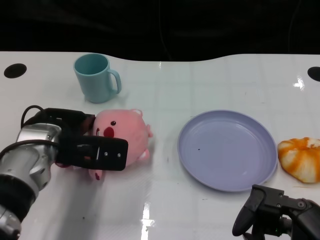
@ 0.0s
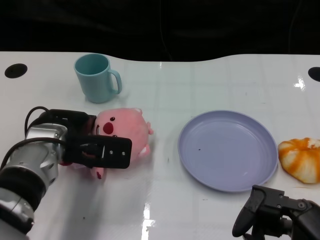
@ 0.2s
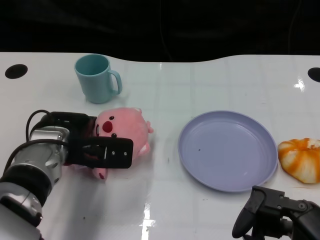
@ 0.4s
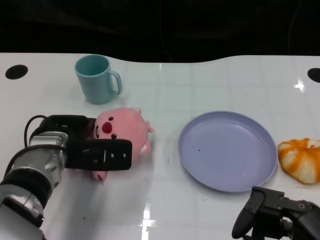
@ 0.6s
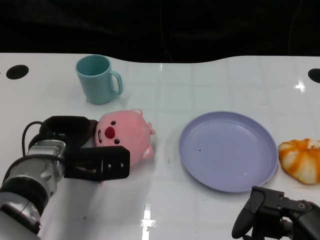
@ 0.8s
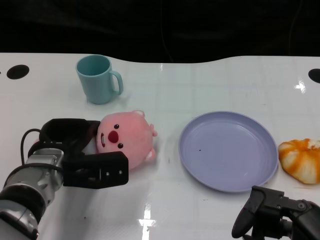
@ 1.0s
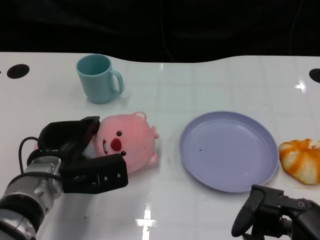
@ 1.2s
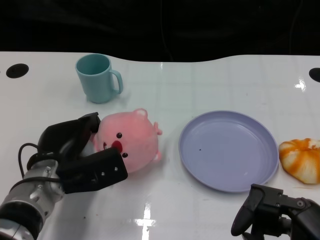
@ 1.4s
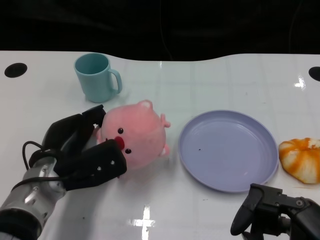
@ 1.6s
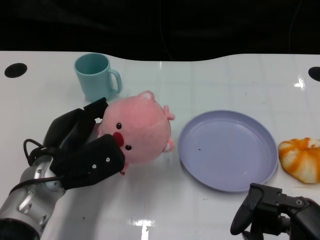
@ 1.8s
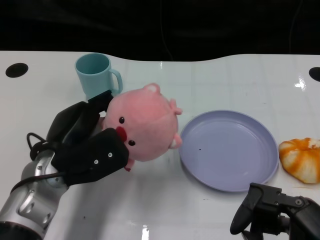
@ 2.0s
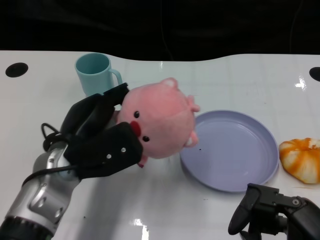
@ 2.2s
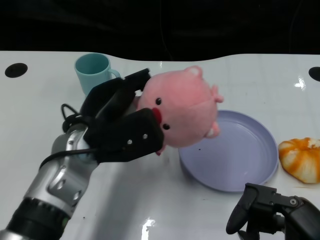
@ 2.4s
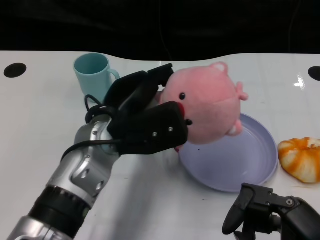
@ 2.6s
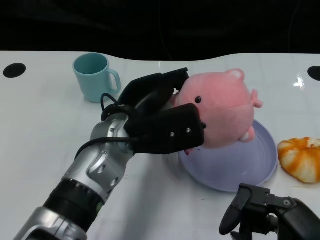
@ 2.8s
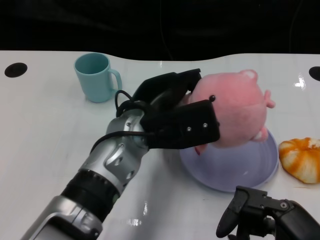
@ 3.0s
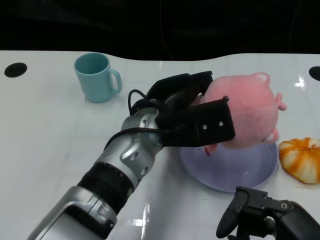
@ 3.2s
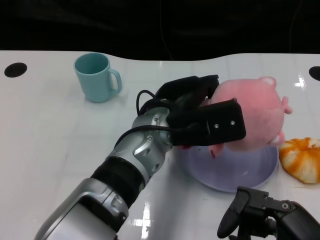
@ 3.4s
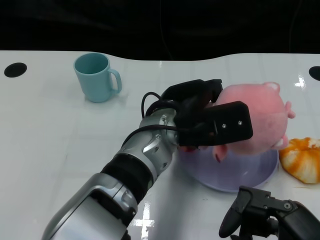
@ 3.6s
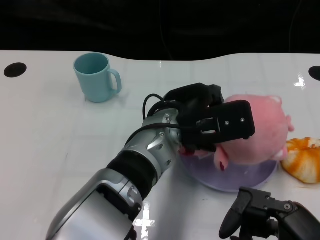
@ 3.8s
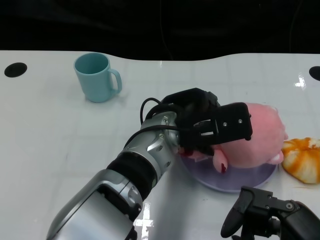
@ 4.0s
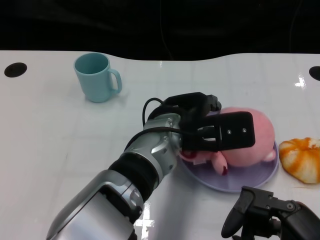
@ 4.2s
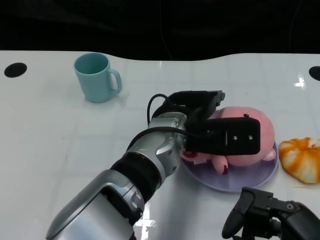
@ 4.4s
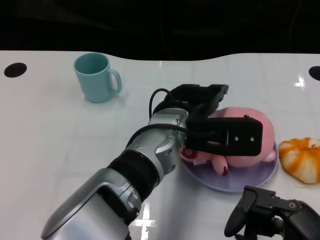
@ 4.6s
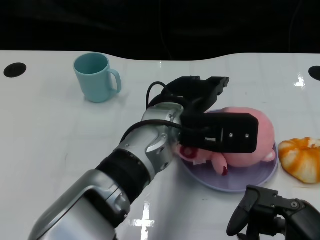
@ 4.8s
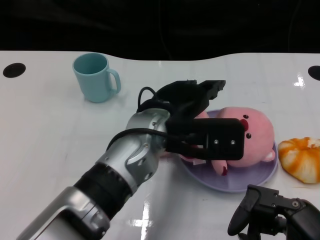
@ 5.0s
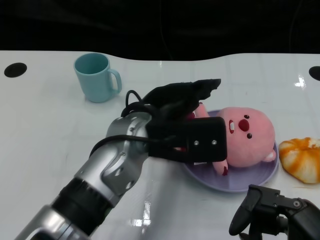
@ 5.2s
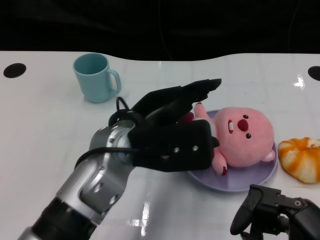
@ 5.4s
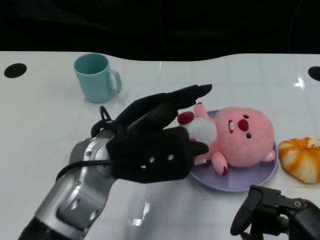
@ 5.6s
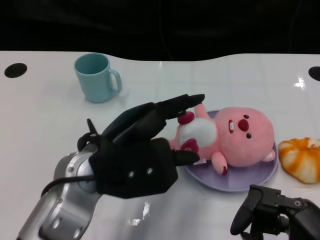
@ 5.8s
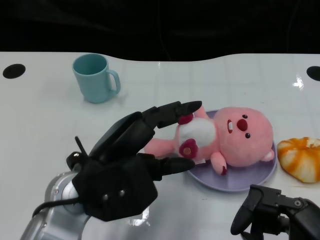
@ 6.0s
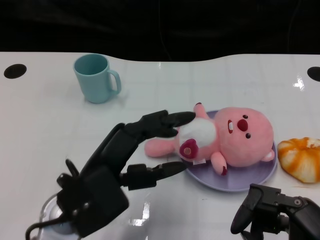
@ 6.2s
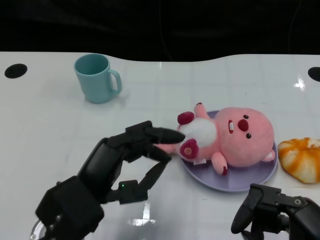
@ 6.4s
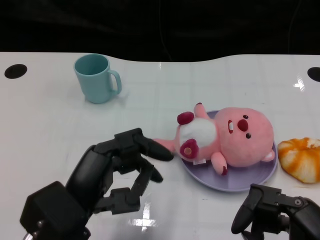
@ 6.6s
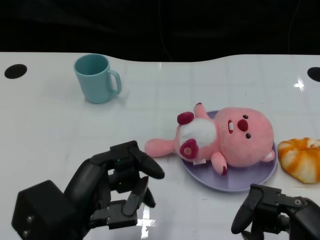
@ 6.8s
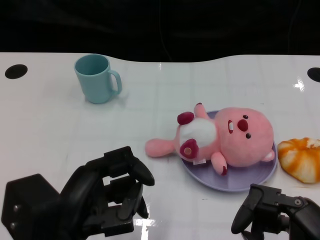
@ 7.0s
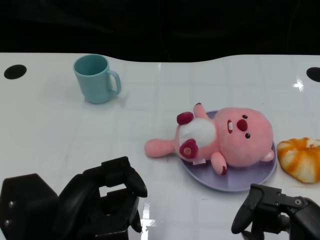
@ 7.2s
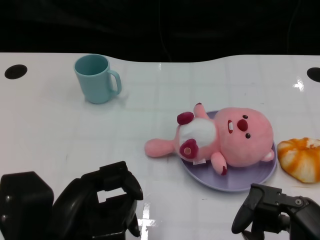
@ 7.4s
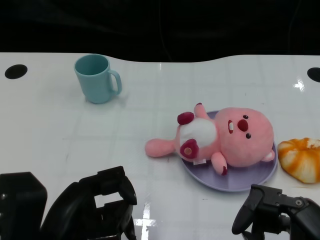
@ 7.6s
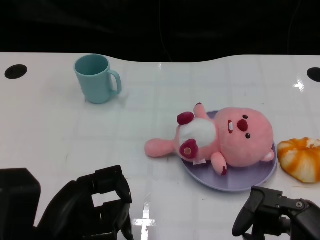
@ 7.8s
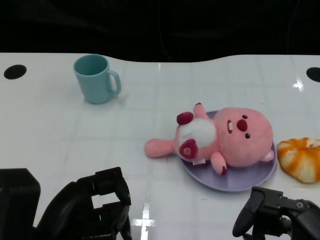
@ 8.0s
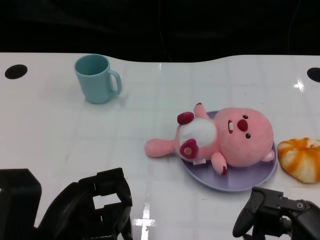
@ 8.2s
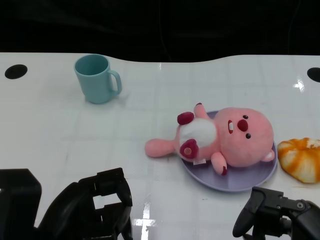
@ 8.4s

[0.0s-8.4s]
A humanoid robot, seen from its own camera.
Task of the whole recording: Pick up the doll on one side of the plate and place it into the plate.
Step, 1.8s to 5.2s: Place the pink doll into the plate with the left gripper.
0.0s to 1.4s: The left hand goes approximately 5 cm downward.
1.4s to 2.8s: The left hand shifts approximately 15 cm to the right and upward.
2.8s to 4.2s: The left hand moves to the right, roughly 5 cm.
4.2s to 5.6s: The left hand is displaced to the left by approximately 10 cm.
5.6s to 7.0s: The left hand shifts approximately 10 cm backward and to the left.
7.0s to 8.4s: The hands move only a little.

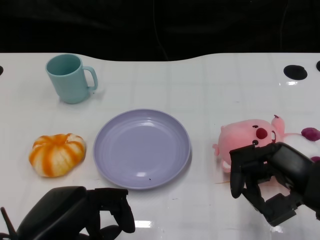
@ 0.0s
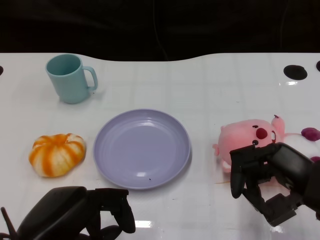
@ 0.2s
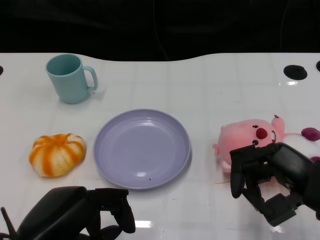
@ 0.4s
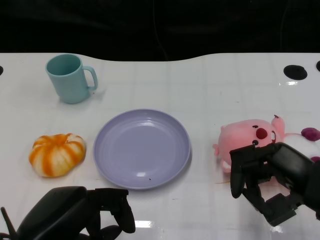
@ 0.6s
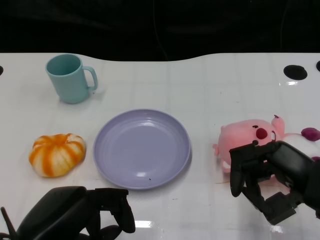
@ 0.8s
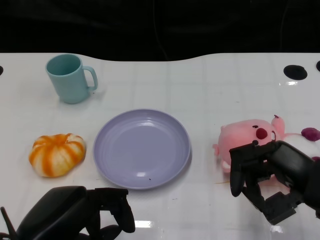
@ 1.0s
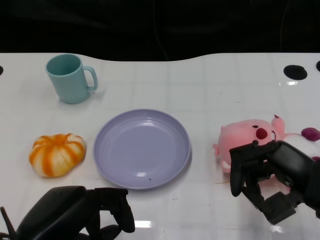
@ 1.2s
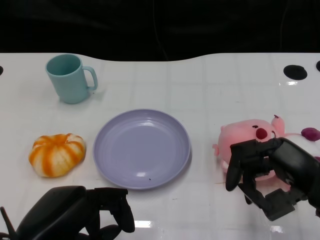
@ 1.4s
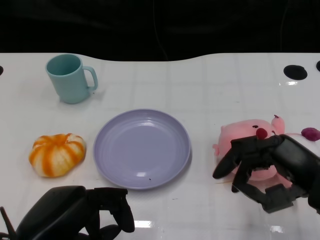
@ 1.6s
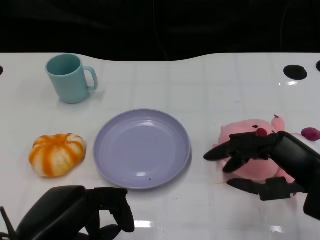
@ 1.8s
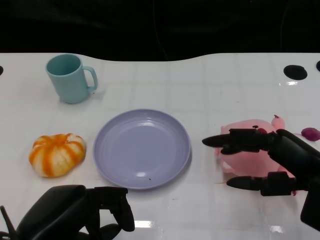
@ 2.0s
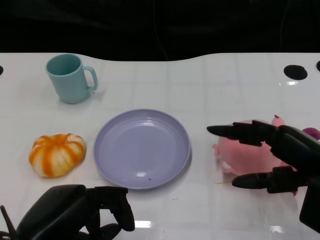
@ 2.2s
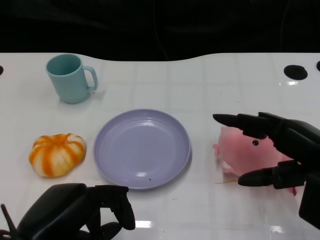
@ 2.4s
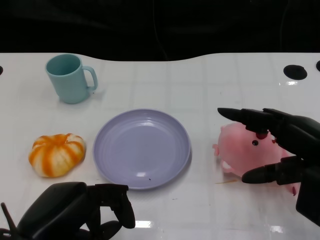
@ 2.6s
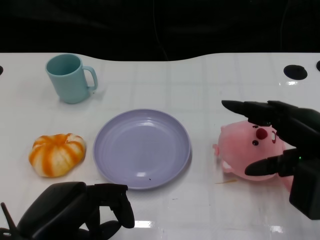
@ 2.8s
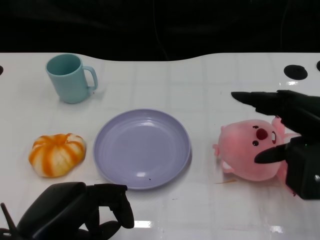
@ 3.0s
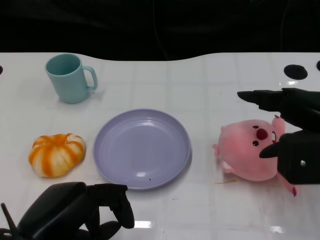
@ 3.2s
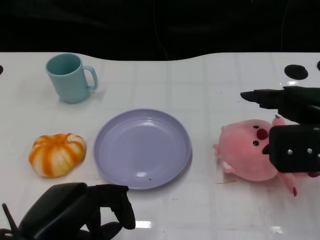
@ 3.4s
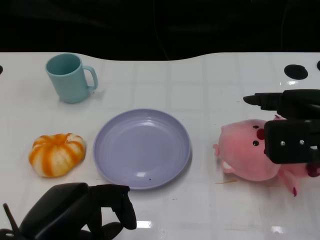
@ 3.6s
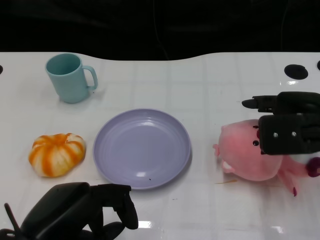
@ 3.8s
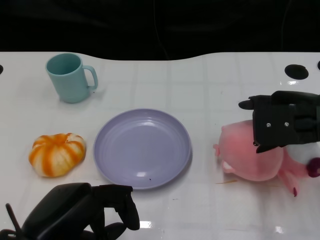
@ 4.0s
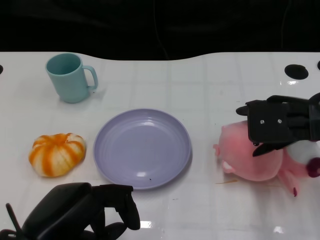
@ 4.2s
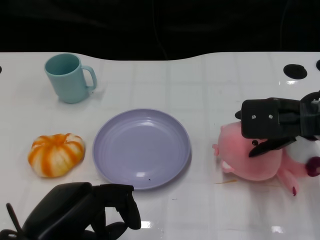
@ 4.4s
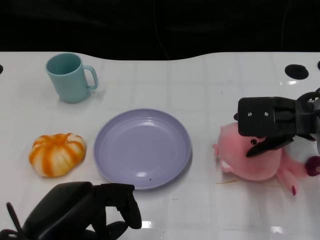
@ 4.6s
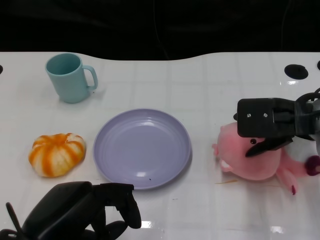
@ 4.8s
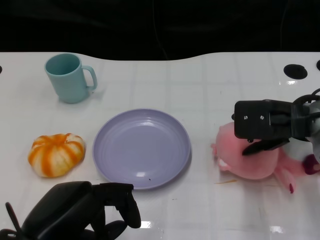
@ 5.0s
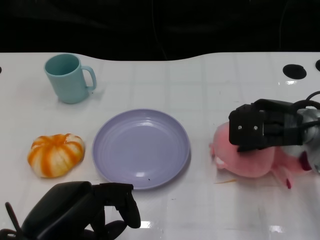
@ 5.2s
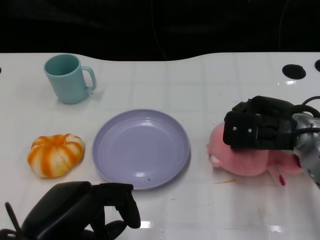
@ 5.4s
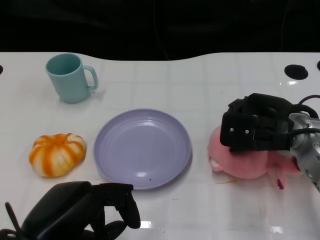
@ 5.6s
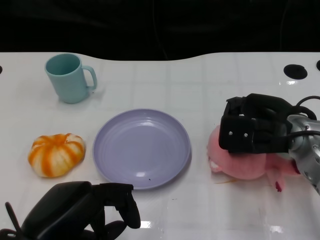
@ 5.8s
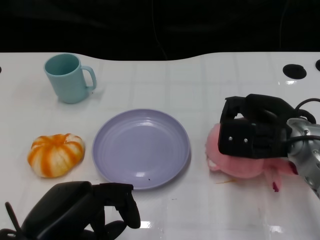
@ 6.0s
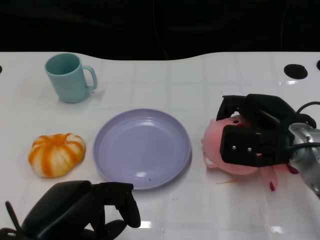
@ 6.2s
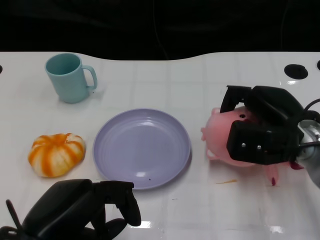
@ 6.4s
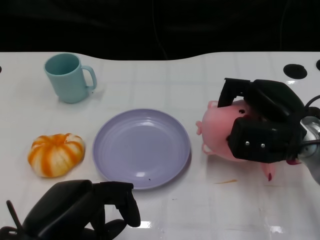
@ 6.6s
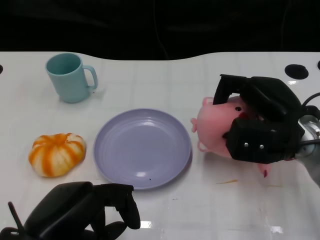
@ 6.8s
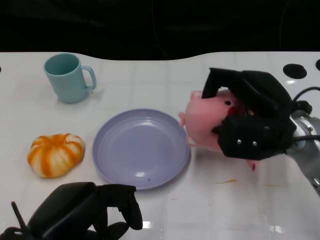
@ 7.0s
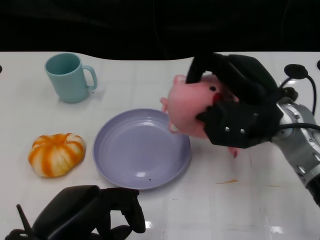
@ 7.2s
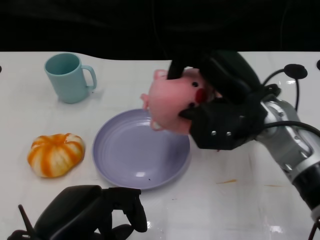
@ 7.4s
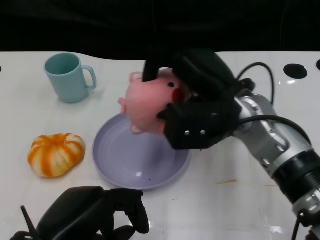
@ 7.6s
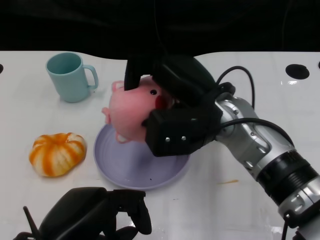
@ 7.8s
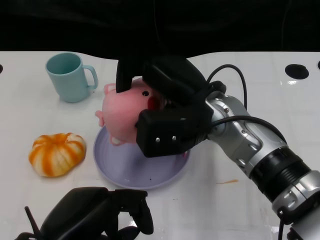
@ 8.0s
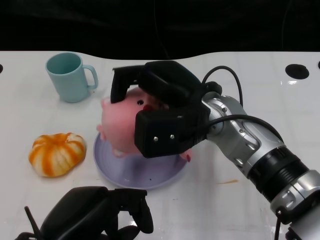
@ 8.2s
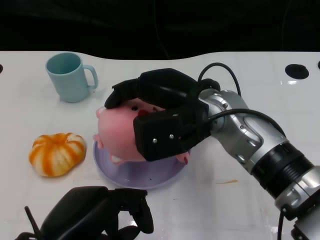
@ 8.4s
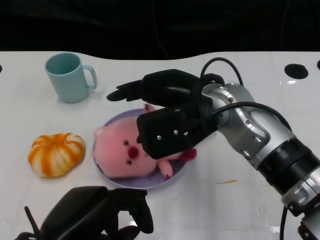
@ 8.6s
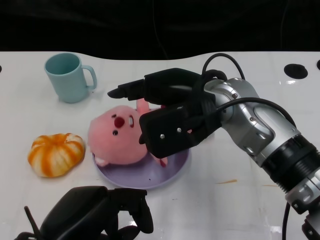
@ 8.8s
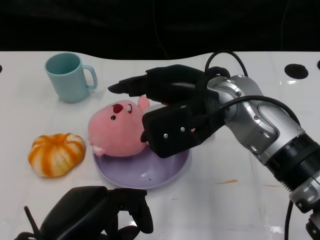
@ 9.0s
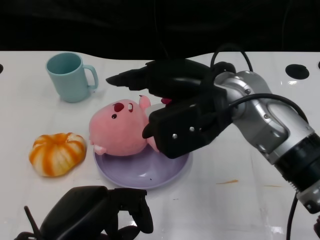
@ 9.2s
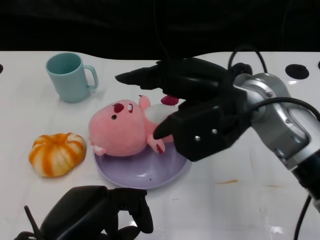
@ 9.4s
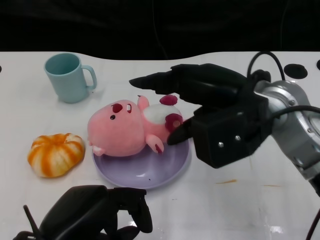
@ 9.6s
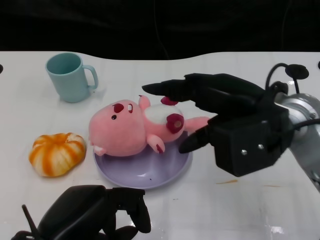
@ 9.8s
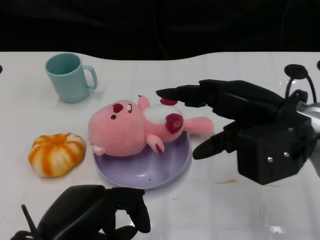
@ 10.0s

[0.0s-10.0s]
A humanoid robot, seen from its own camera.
Task of the whole recording: Pick up the doll on the other side of the plate and place it into the plate.
Step, 1.4s to 7.0s: Grasp the pink doll with the right gripper.
Step, 7.2s to 8.8s: Place the pink doll into the plate with the right gripper.
2.8s to 4.2s: The right hand shifts some 10 cm forward.
4.2s to 5.8s: The right hand ends up some 5 cm from where it was.
7.2s to 8.6s: The right hand travels to the left by some 10 cm.
8.6s to 10.0s: The right hand shifts about 10 cm to the right.

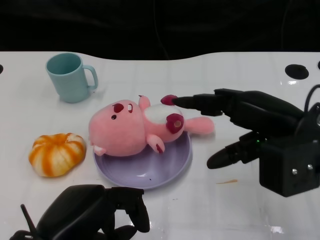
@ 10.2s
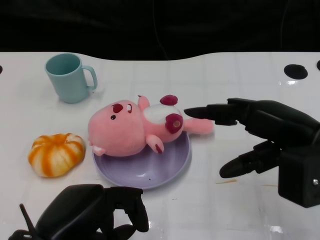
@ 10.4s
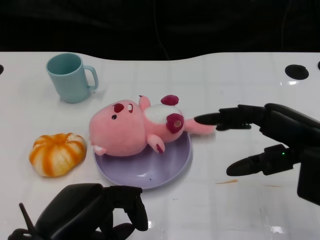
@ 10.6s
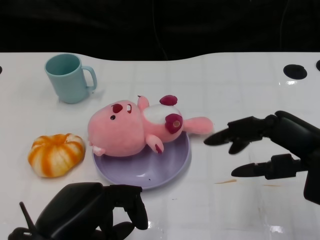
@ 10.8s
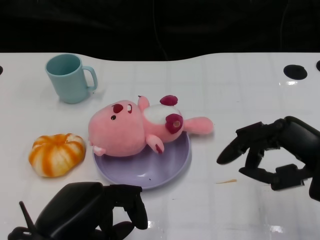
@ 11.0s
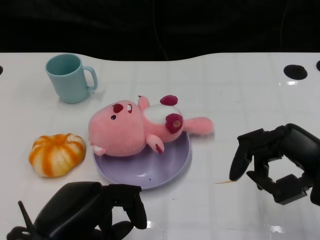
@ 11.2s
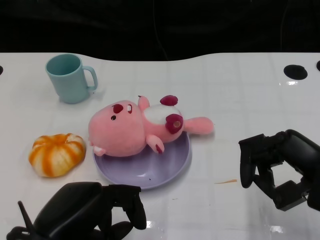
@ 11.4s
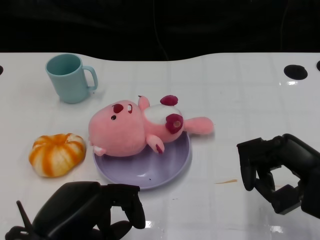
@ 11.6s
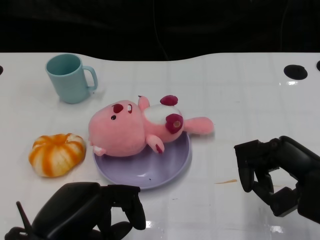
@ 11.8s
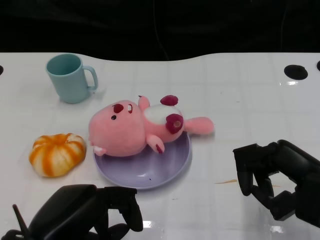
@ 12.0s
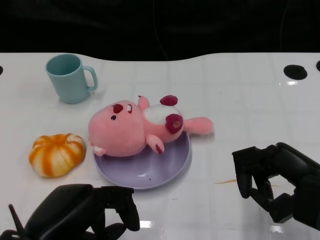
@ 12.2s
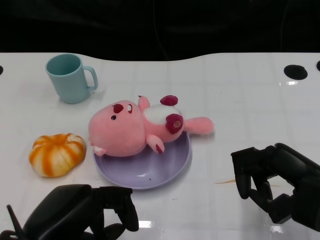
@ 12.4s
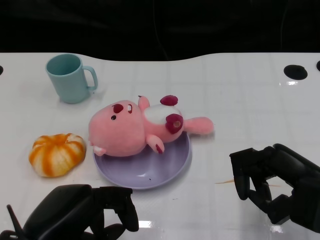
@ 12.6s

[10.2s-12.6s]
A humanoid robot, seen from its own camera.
Task of the whole recording: Pick up the doll on the other side of the plate and place it into the plate.
10.2s to 11.4s: The right hand is displaced backward by some 5 cm.
11.4s to 12.6s: The hands stay close to where they were, moving slightly.

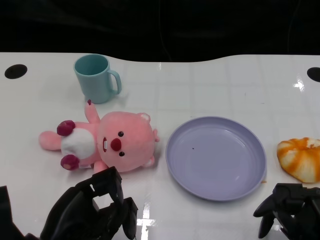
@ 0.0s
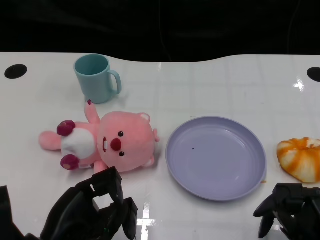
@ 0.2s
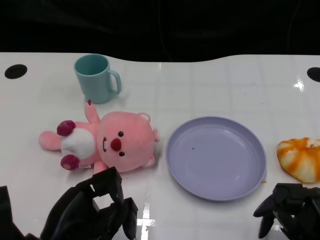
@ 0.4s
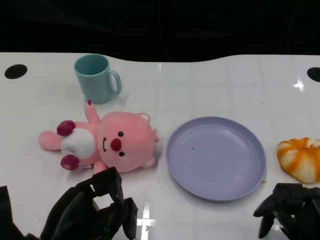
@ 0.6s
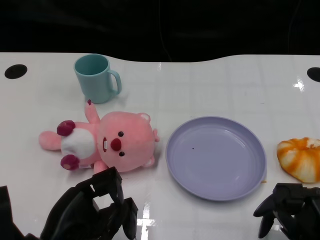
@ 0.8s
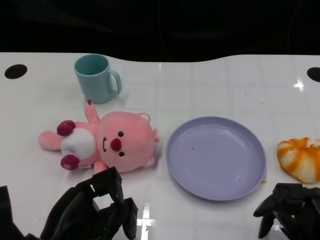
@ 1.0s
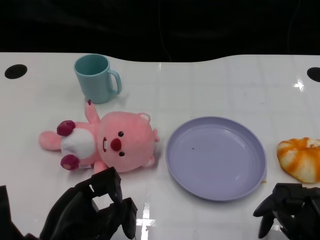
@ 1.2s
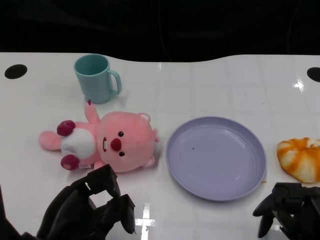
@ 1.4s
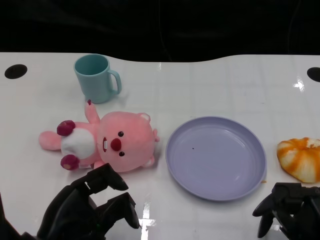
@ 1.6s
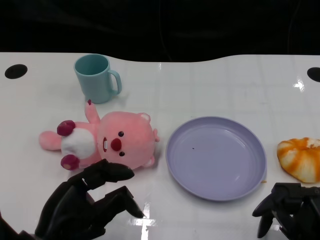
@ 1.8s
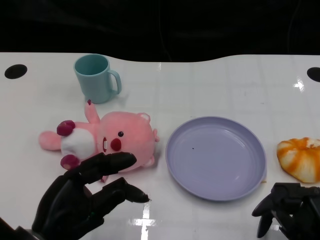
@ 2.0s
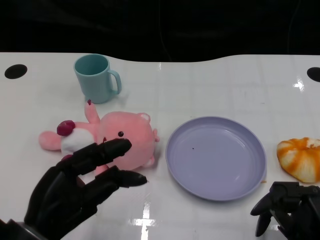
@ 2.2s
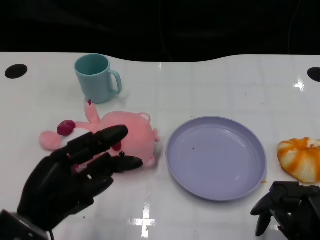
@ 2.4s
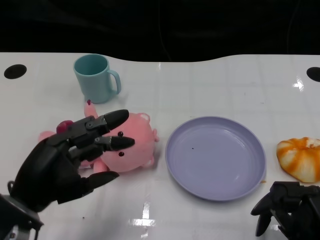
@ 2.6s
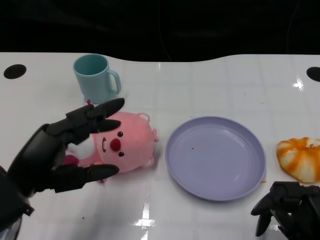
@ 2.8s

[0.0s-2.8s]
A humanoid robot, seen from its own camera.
Task of the whole recording: Pick up the doll on one side of the plate and place it into the plate.
1.4s to 2.8s: The left hand goes about 5 cm upward.
